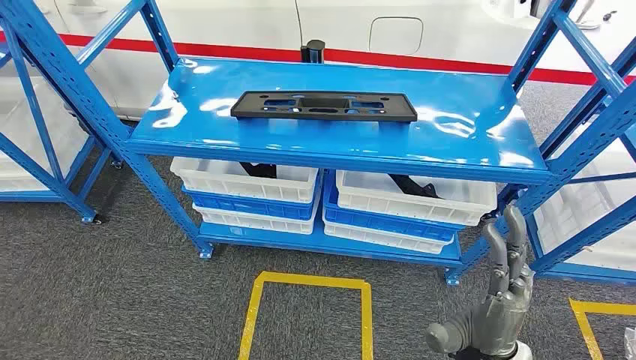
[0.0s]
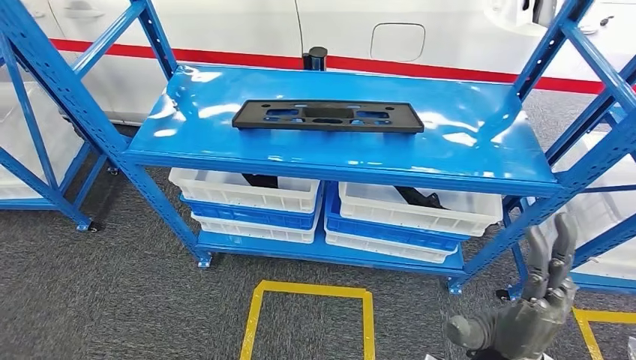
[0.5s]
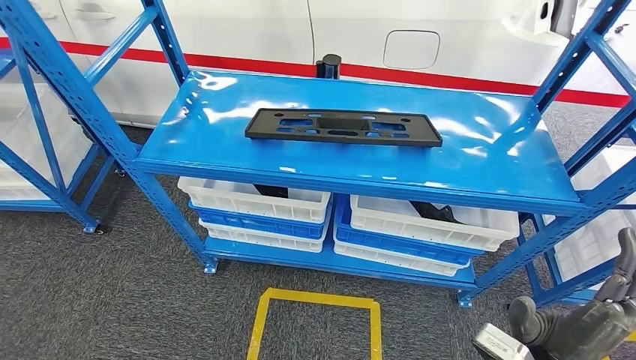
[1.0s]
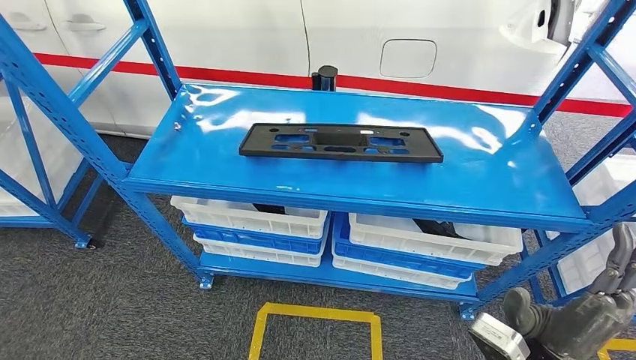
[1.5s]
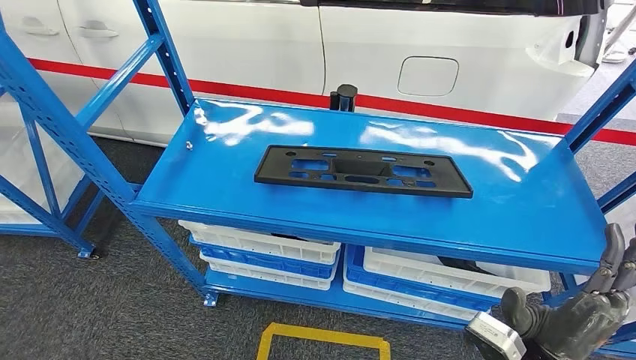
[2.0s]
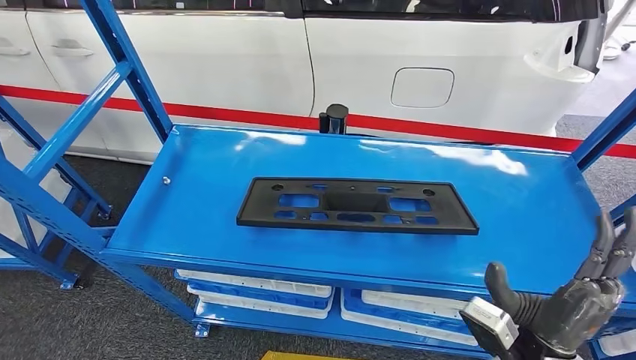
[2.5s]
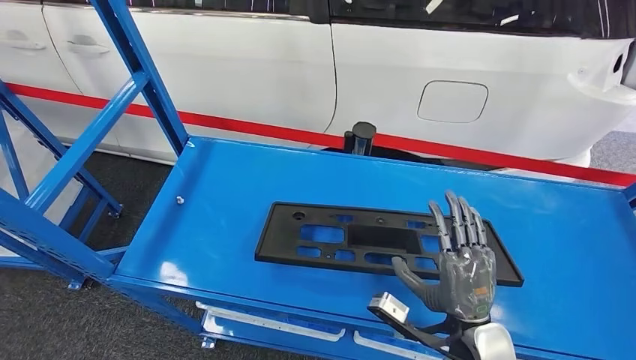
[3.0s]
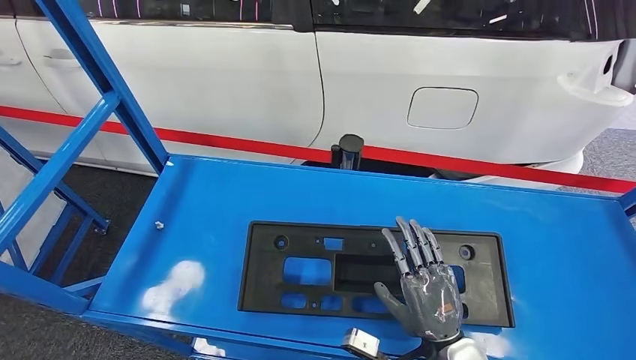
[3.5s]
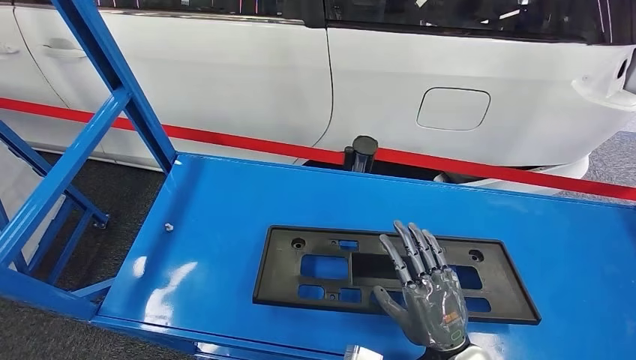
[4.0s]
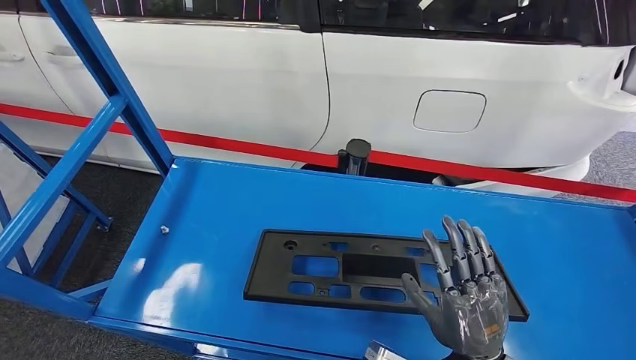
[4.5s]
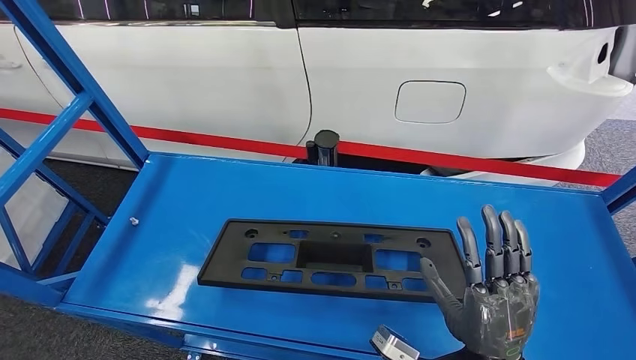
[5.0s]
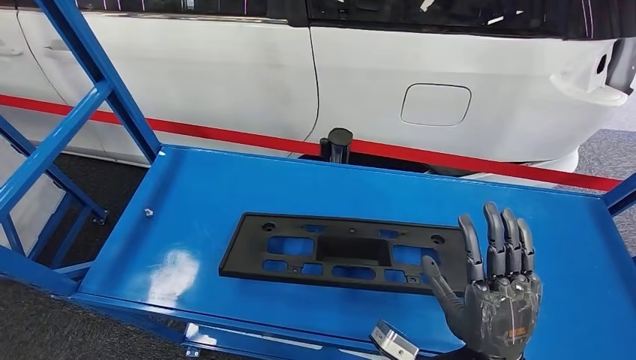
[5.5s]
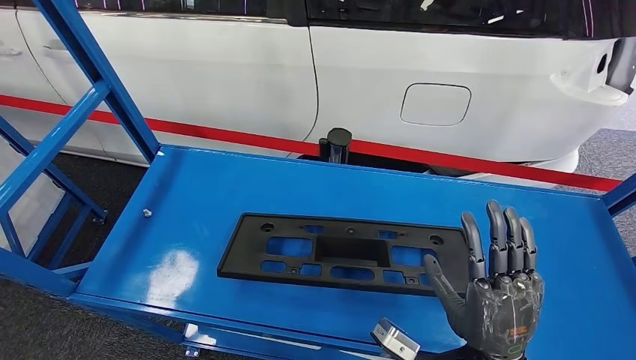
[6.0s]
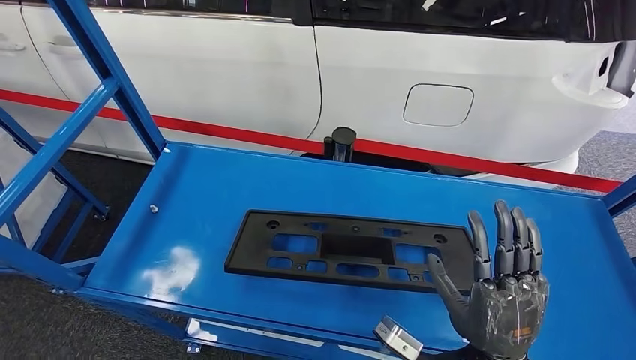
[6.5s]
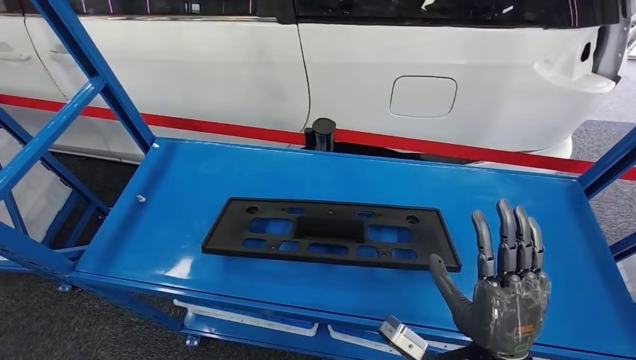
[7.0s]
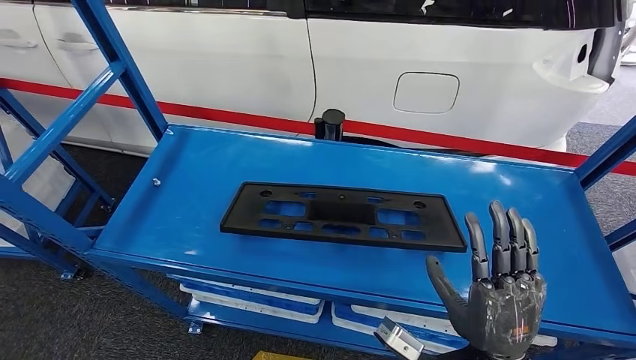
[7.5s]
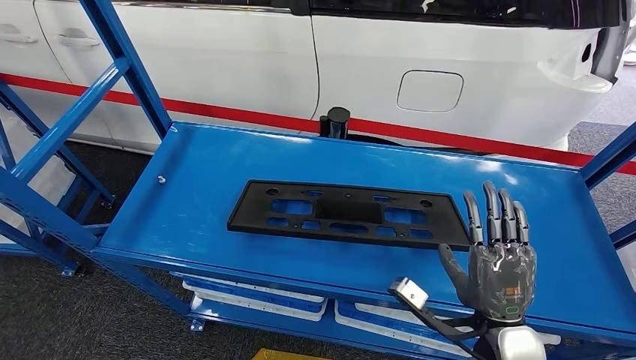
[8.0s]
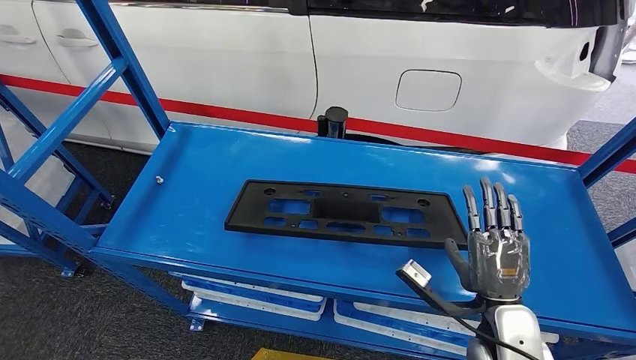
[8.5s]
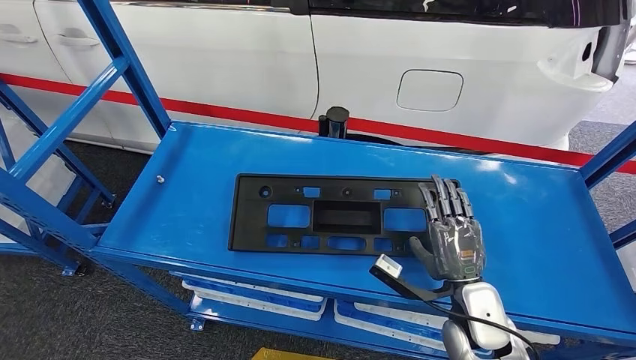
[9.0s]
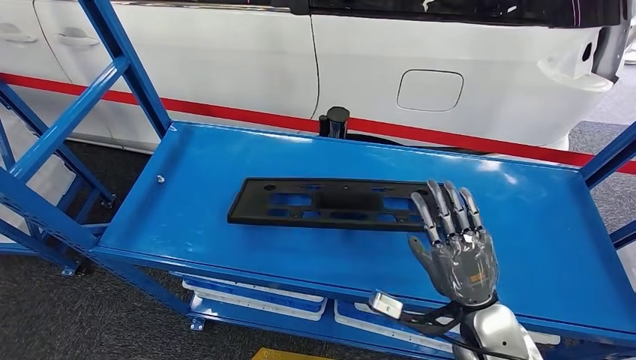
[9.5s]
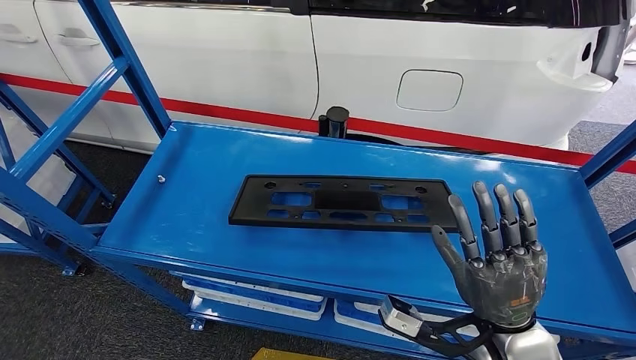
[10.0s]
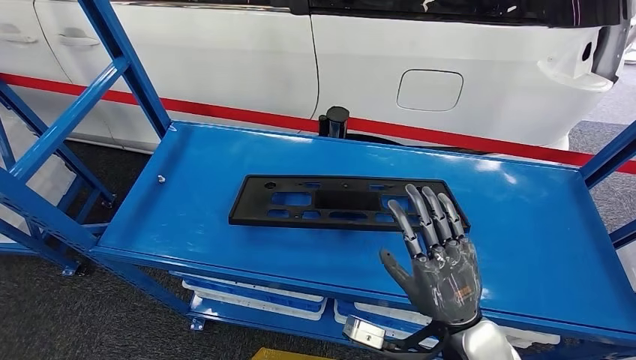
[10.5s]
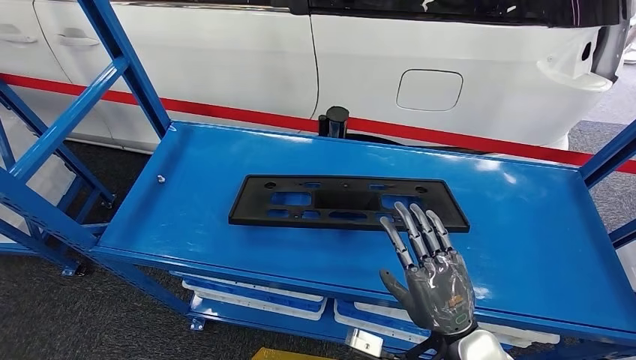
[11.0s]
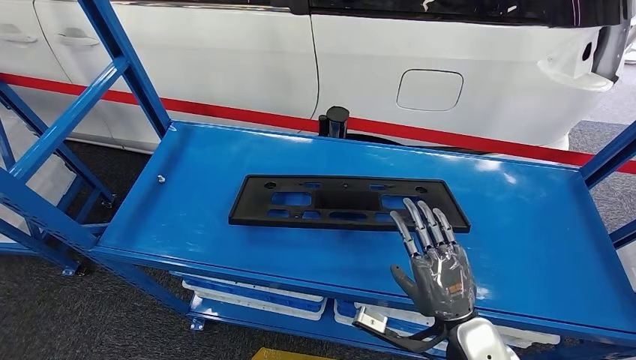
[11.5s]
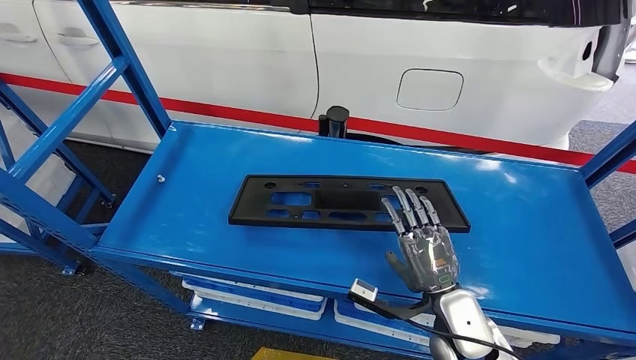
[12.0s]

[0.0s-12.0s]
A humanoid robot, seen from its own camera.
10.0s to 12.0s: The right hand goes about 10 cm downward.

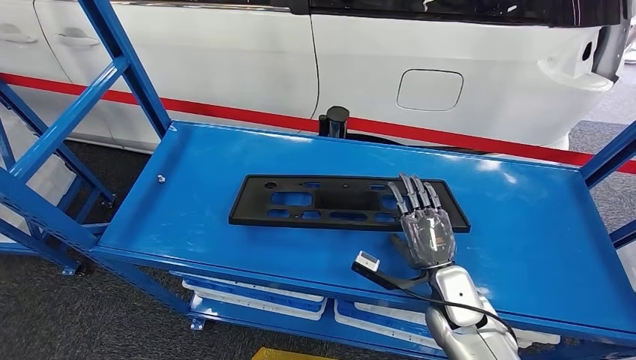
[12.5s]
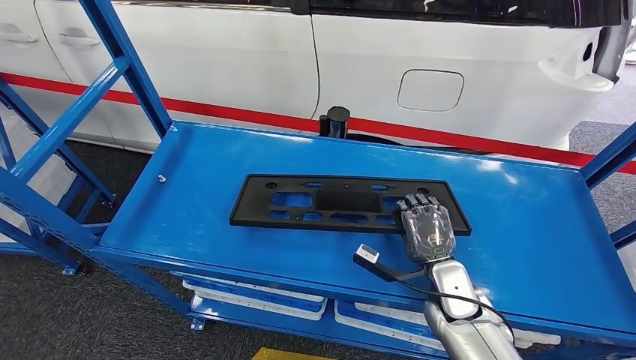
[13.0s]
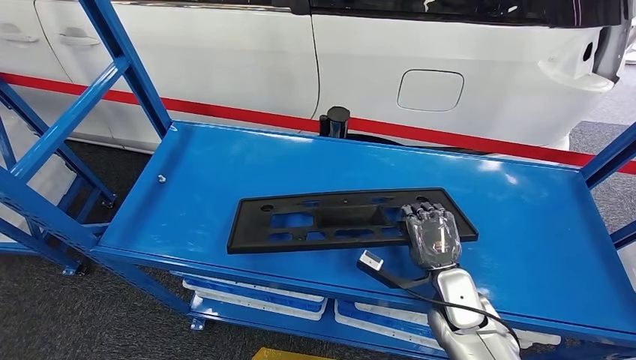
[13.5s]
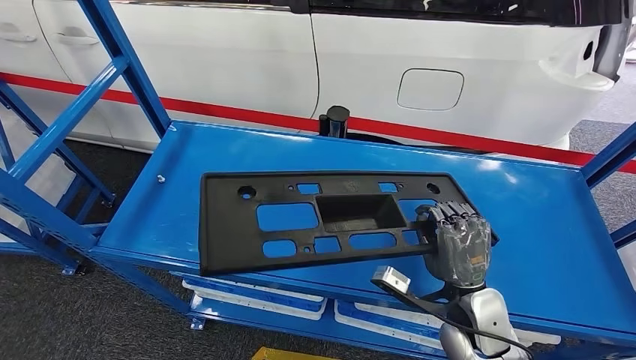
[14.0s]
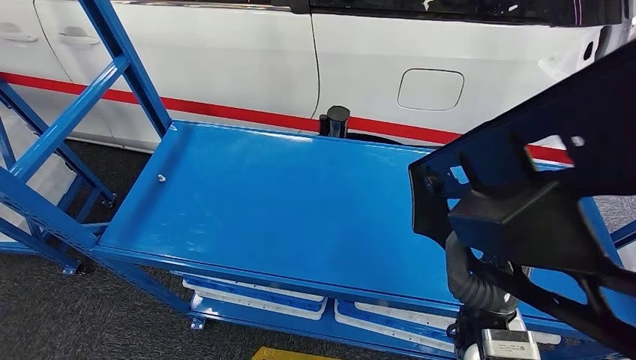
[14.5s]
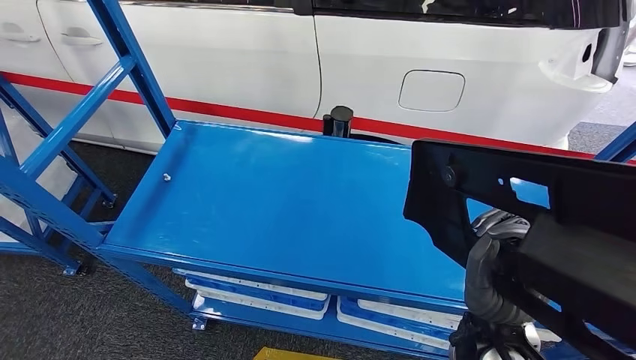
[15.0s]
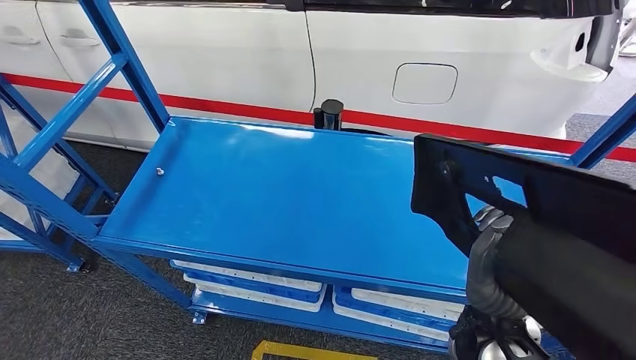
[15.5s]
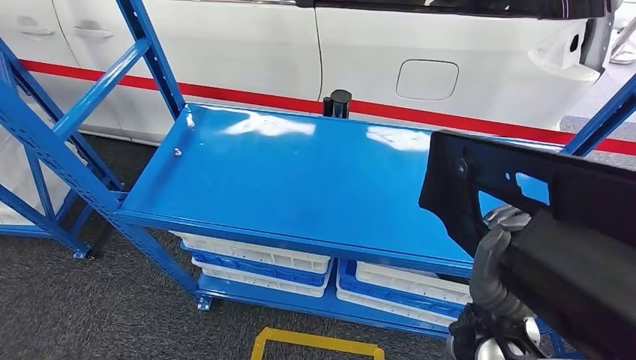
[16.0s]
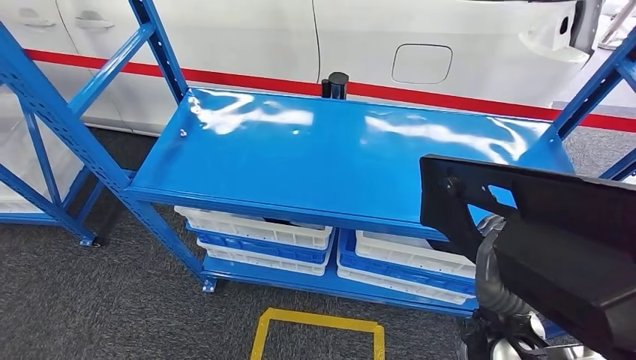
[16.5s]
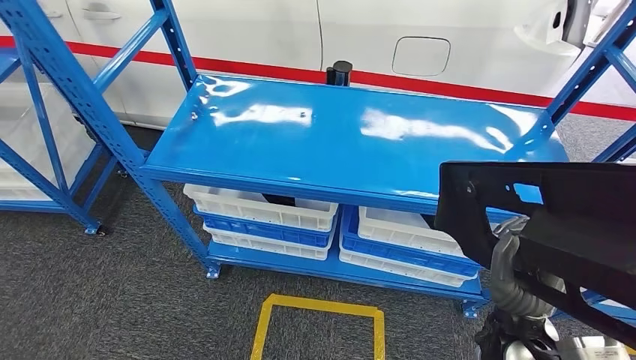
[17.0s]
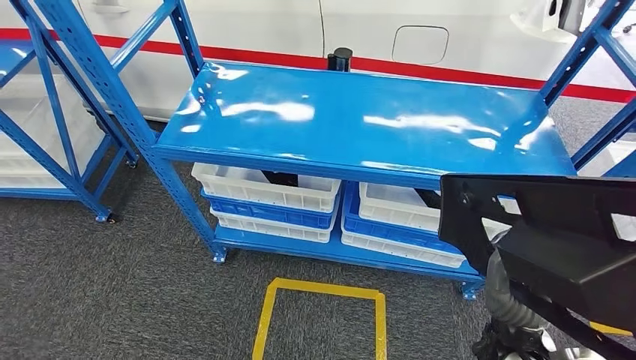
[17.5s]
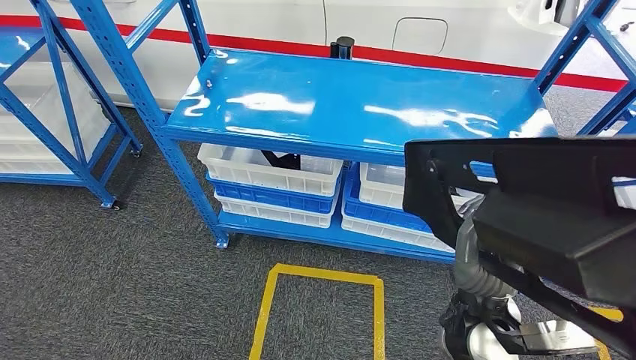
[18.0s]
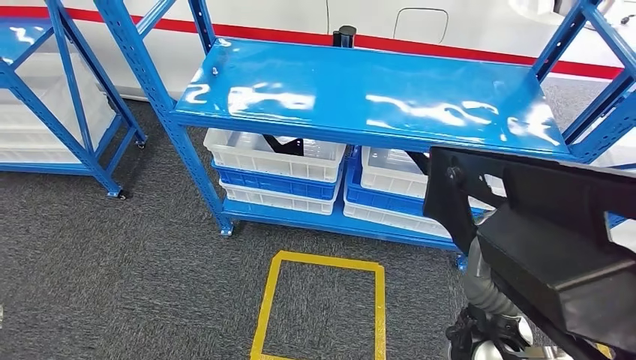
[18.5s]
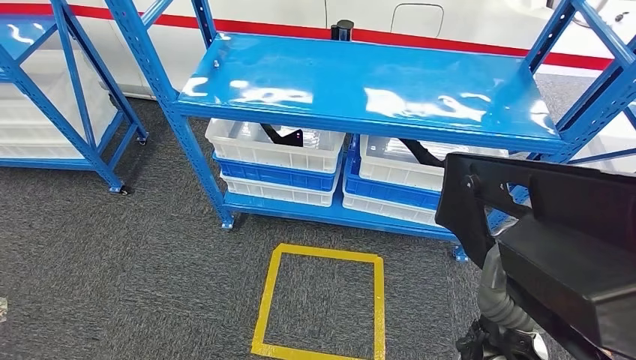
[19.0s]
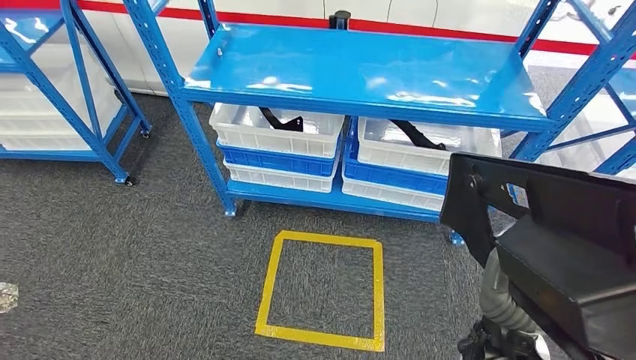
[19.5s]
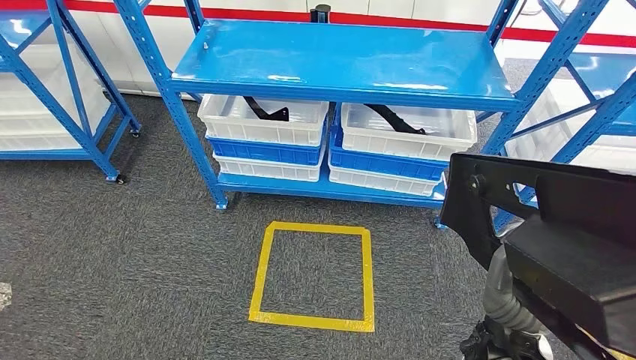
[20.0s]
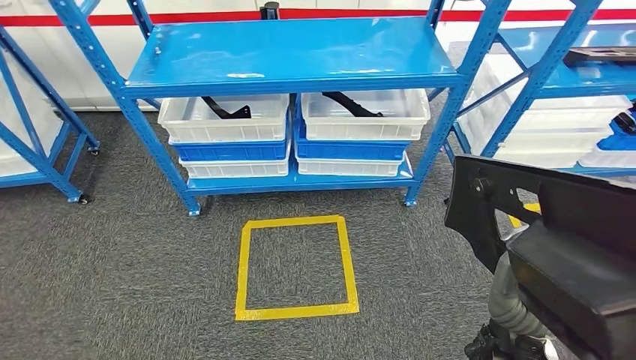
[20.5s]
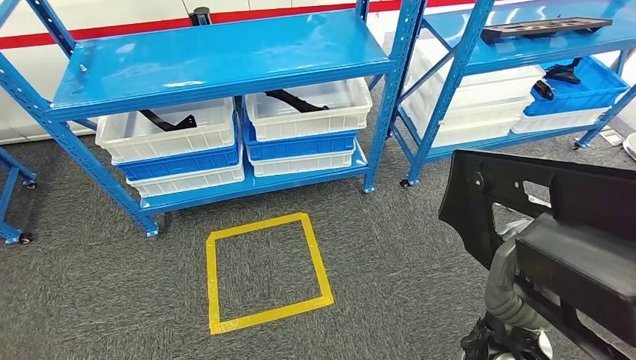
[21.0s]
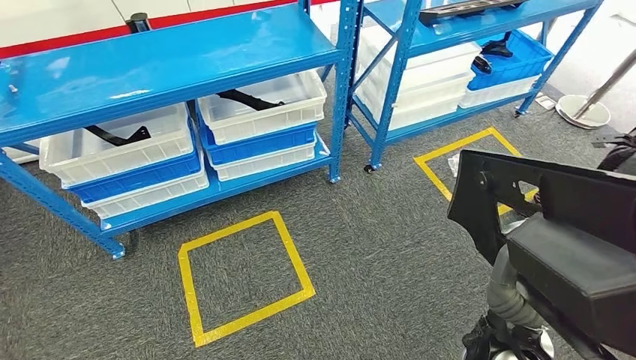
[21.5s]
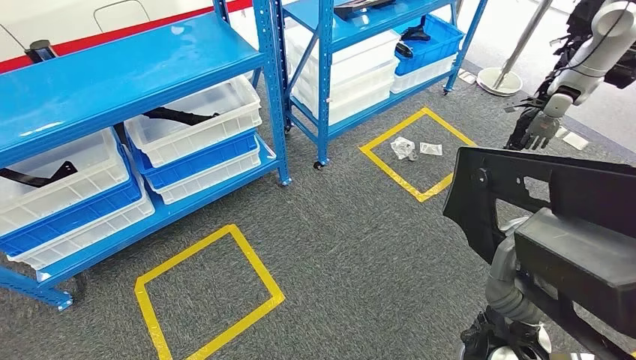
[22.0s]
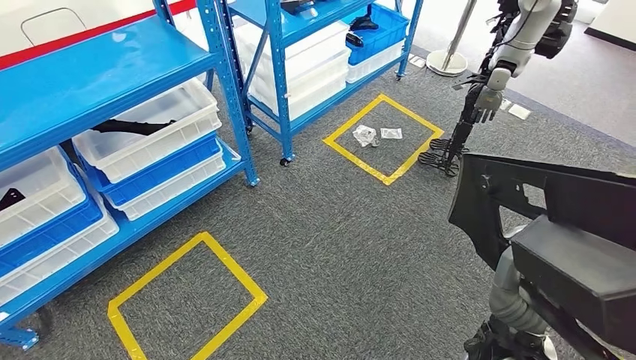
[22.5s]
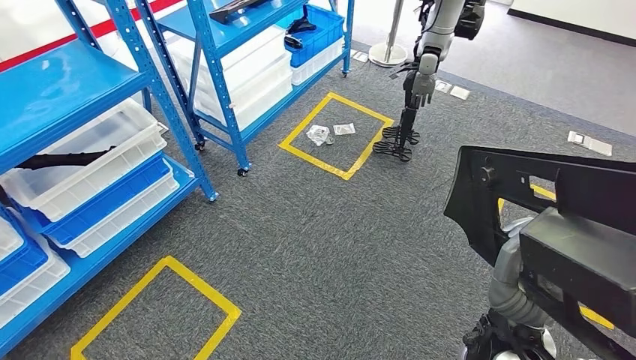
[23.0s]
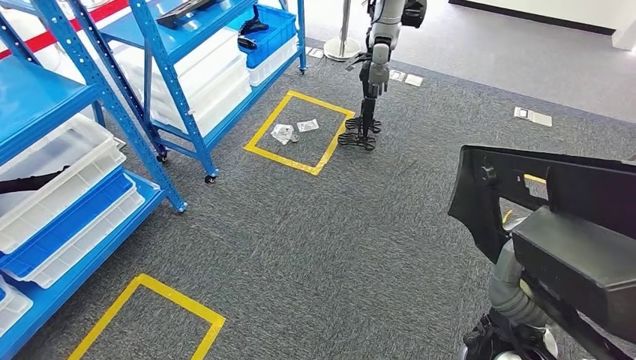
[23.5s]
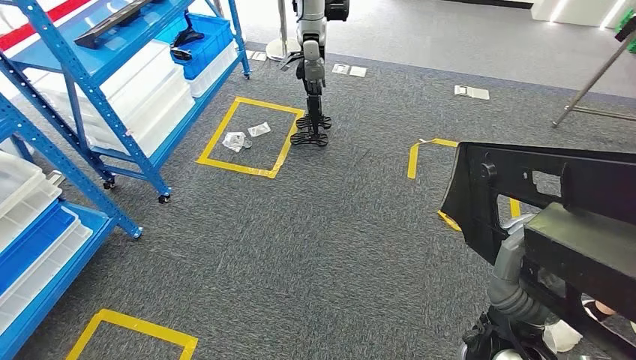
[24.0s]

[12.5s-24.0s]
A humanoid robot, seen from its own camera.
Step, 12.5s to 16.5s: Pick up the large material from the shelf.
